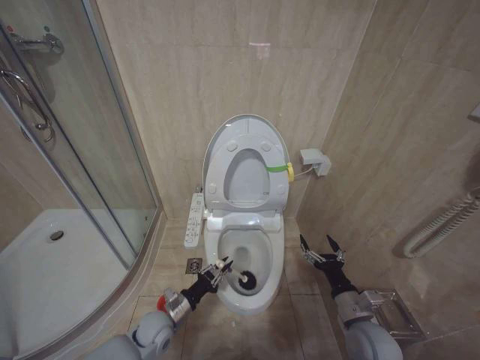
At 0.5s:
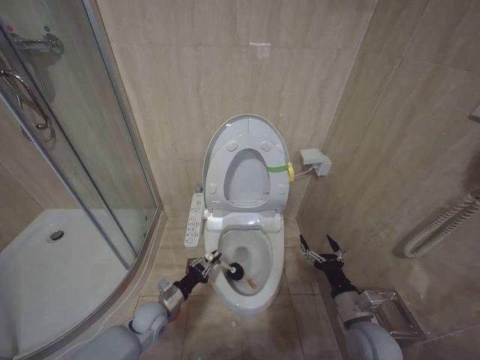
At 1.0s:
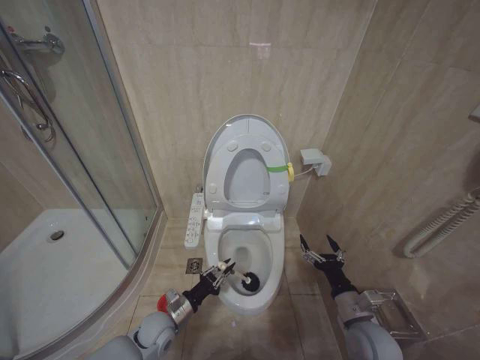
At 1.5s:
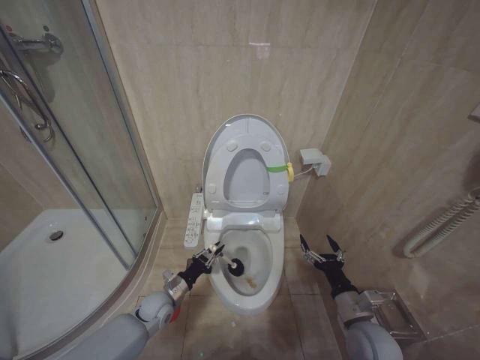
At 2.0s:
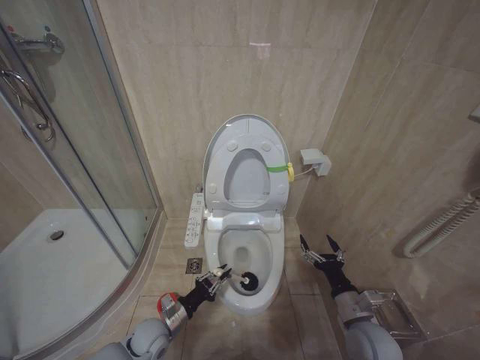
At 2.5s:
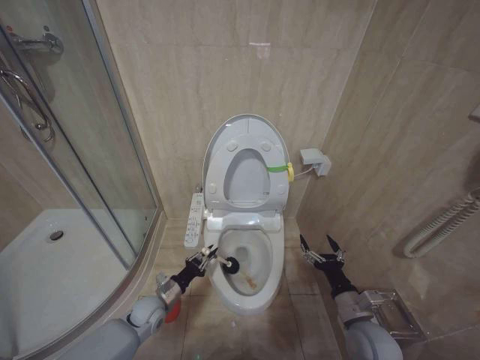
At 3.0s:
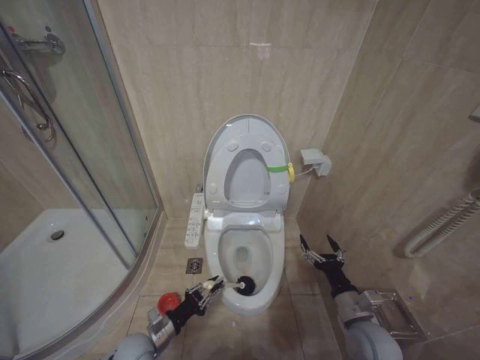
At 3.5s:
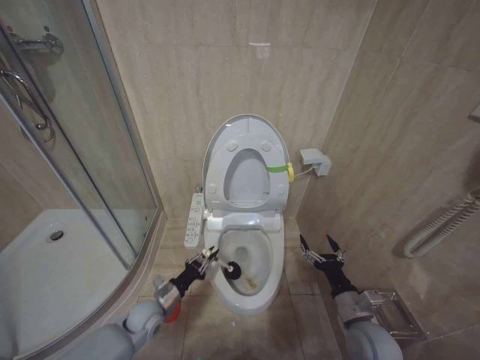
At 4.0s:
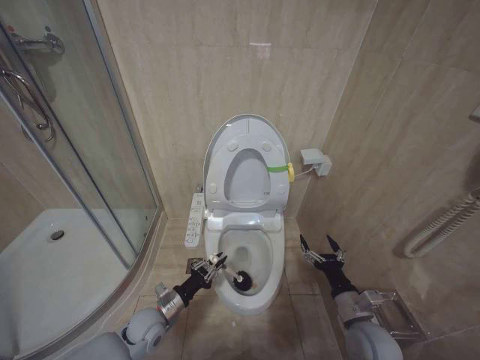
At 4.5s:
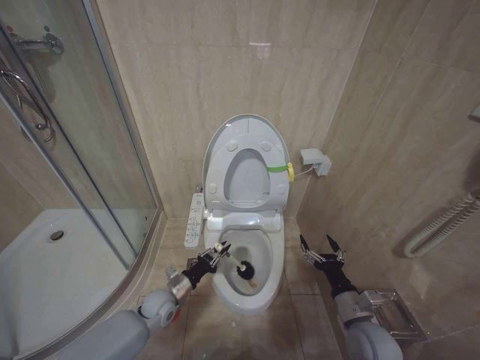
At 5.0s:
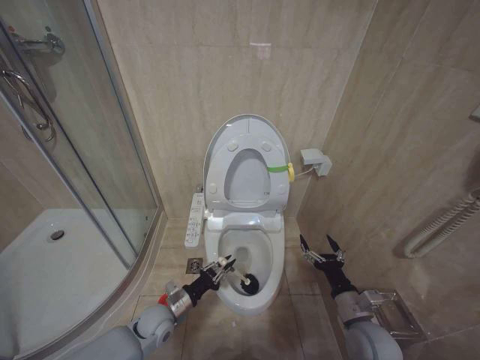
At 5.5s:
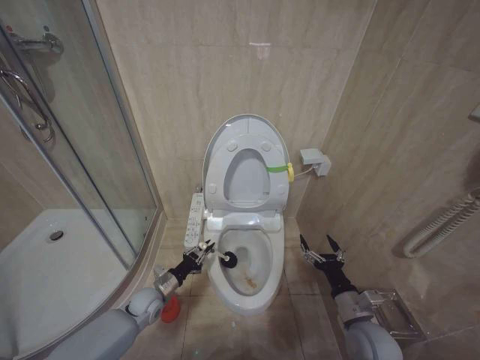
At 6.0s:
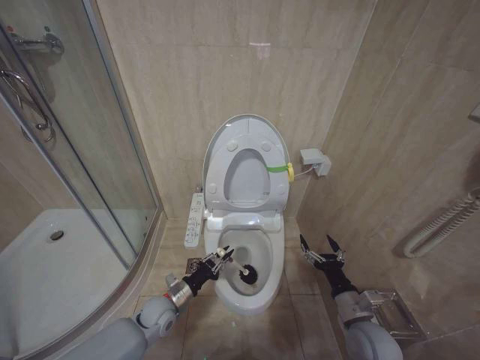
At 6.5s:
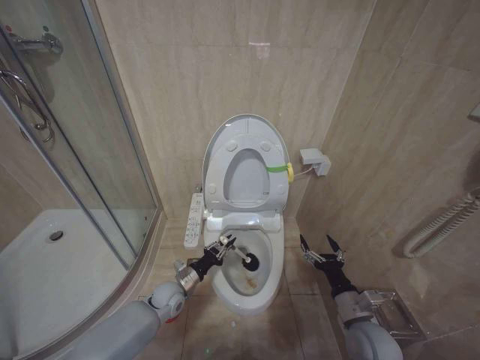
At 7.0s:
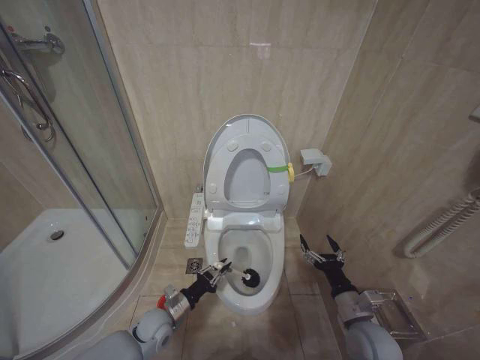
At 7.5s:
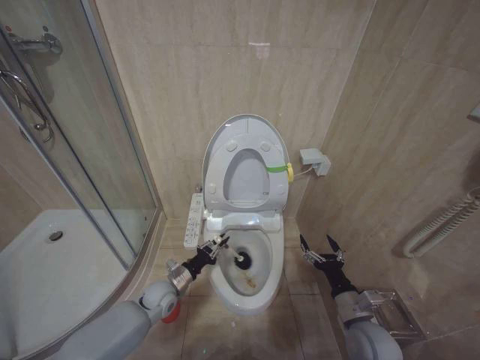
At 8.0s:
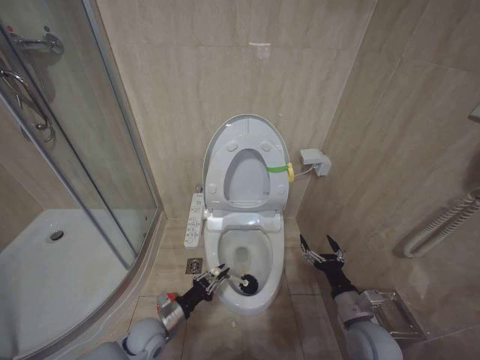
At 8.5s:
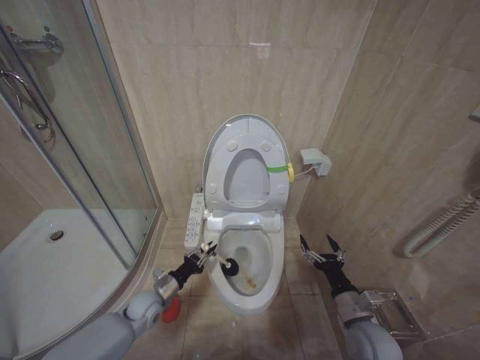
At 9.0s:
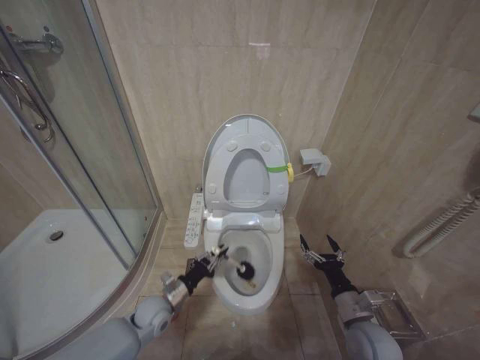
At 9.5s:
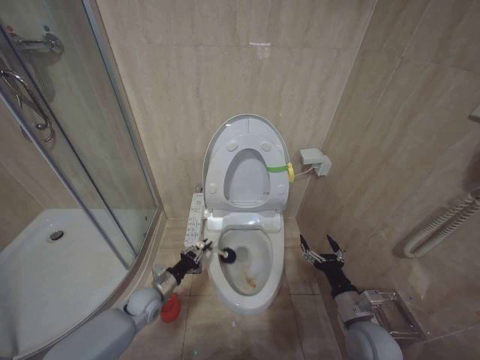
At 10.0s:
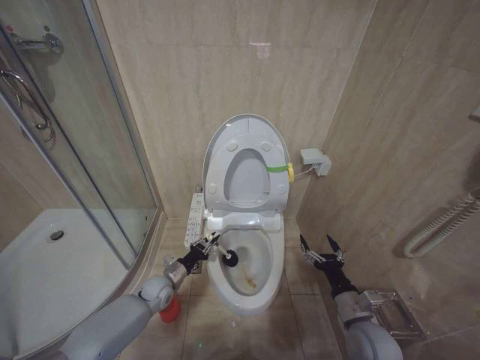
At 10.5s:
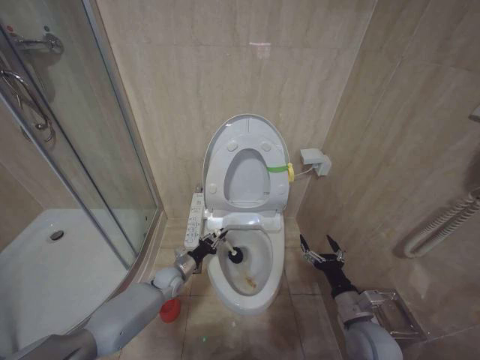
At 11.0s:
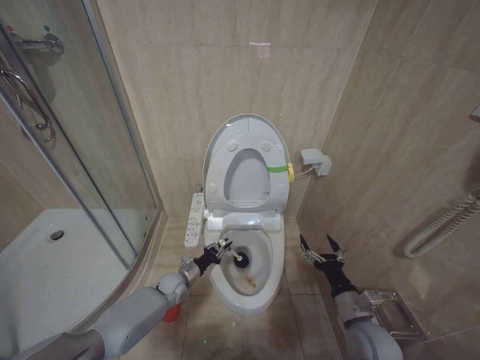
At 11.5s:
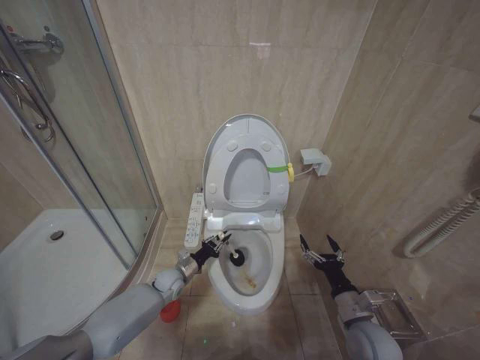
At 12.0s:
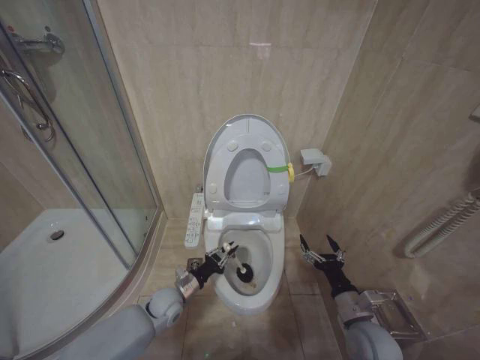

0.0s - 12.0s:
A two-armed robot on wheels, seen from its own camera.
Task of the whole recording: Open the toilet lid, clean the toilet bowl with a toilet brush, close the toilet lid, and flush.
0.0s - 2.0s: The grippers stay close to where they were, moving slightly.
2.0s - 4.0s: The left gripper swings forward and backward, some 5 cm each way, with 2 reversals.
6.0s - 8.0s: The left gripper moves forward and backward over roughly 10 cm, changing direction 3 times.
8.0s - 10.0s: The left gripper heads forward, covering roughly 10 cm.
10.0s - 12.0s: The left gripper moves some 5 cm.

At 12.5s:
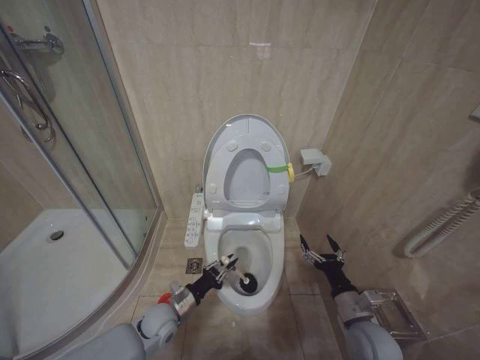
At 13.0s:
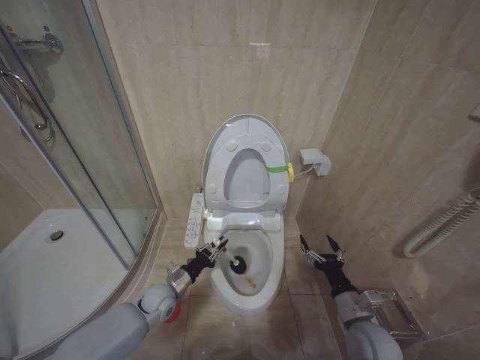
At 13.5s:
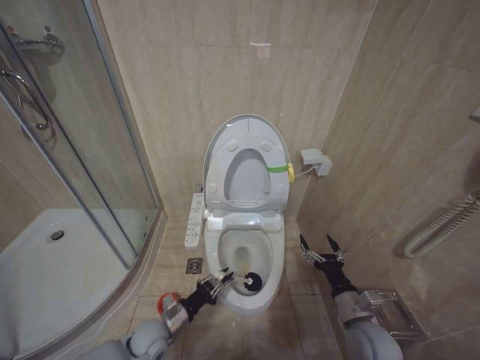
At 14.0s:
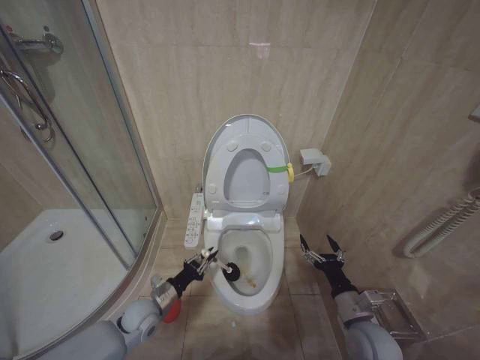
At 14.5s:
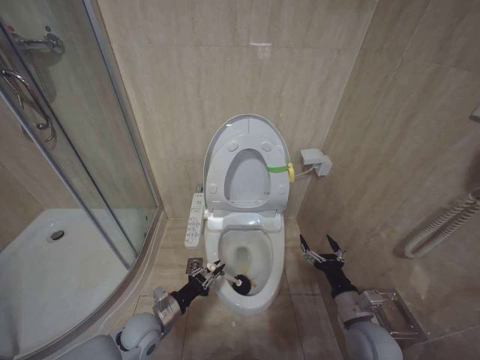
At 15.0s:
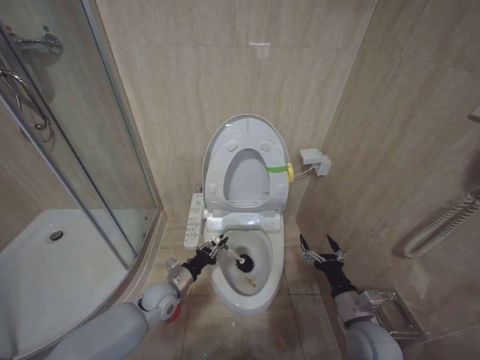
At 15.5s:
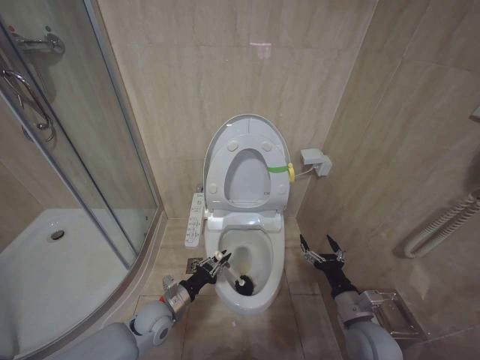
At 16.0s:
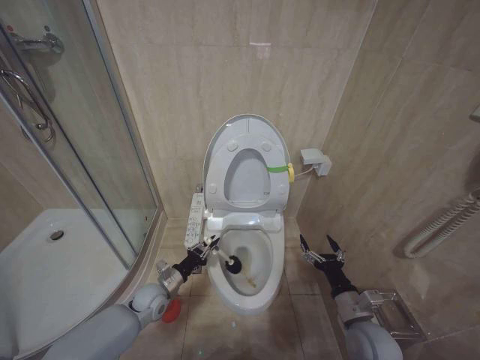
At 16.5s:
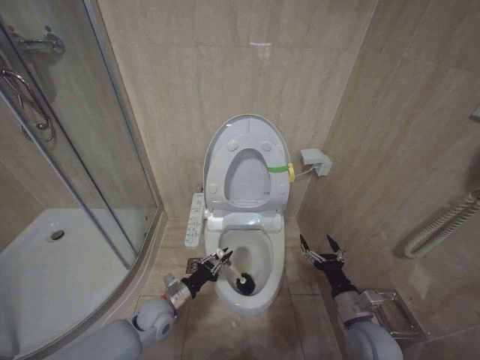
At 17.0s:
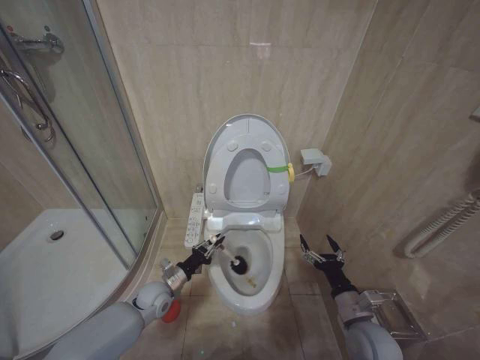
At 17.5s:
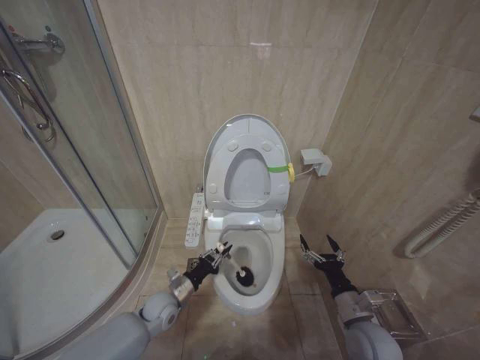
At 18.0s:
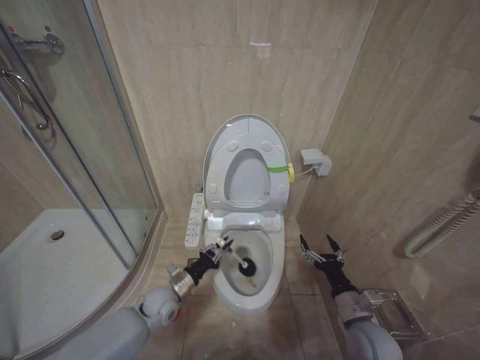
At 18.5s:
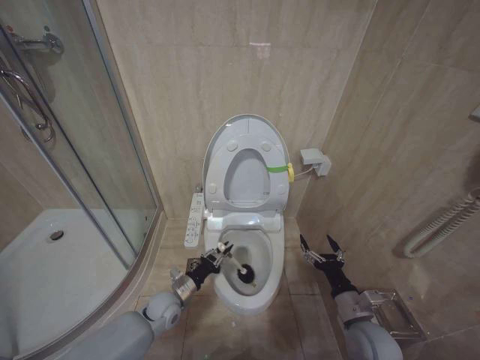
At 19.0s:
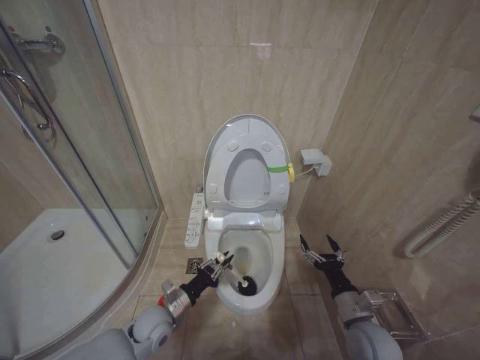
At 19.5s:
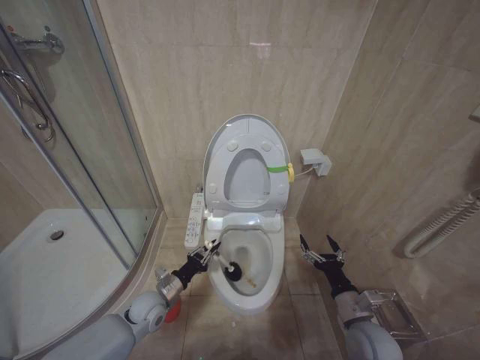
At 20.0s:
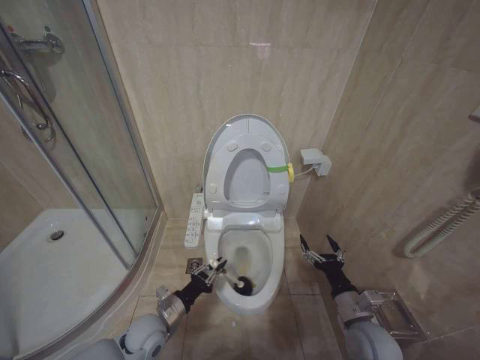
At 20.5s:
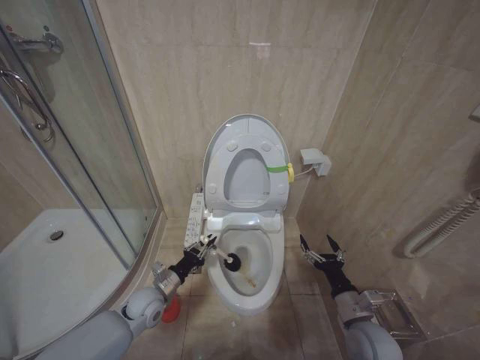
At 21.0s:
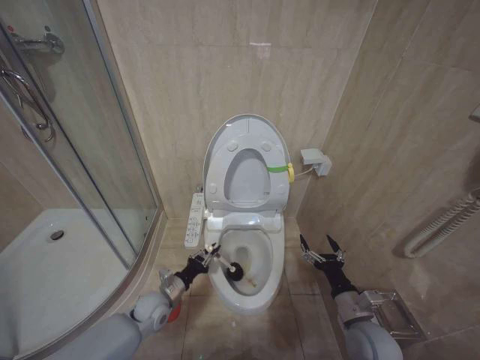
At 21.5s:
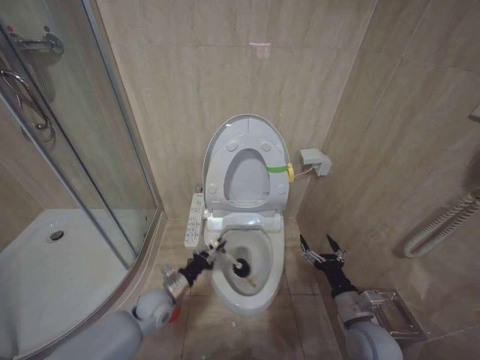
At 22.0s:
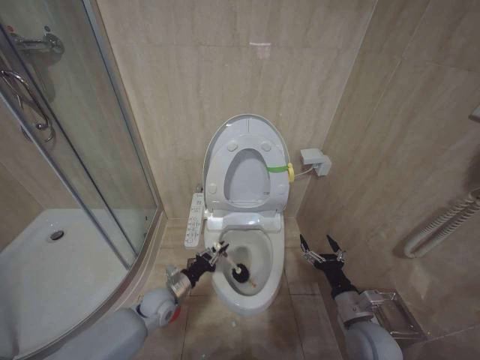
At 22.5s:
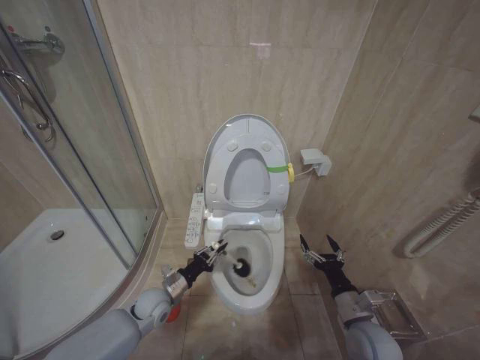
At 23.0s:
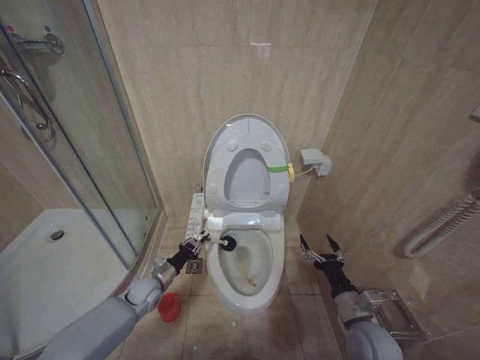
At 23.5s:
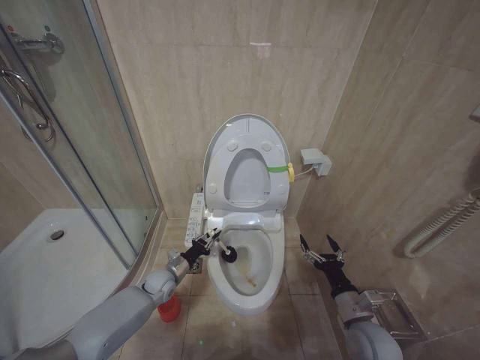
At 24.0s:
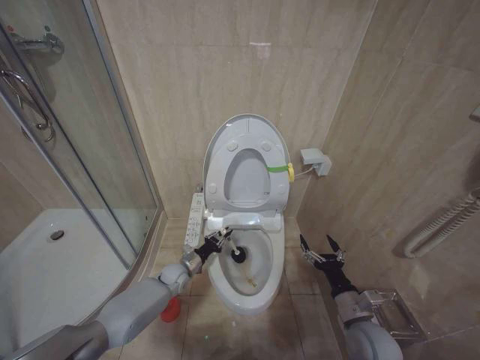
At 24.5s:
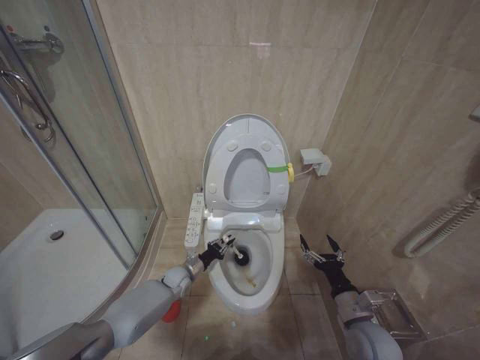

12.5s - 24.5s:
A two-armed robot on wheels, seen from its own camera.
Task of the whole recording: Open the toilet lid, clean the toilet bowl with a toilet brush, close the toilet lid, and flush.
12.5s - 14.5s: The left gripper moves about 5 cm.
14.5s - 16.5s: The left gripper swings forward and backward, some 10 cm each way, with 3 reversals.
18.5s - 20.5s: The left gripper goes about 5 cm to the left.
20.5s - 22.5s: The grippers move only a little.
22.5s - 24.5s: The left gripper is displaced forward and downward by roughly 10 cm.

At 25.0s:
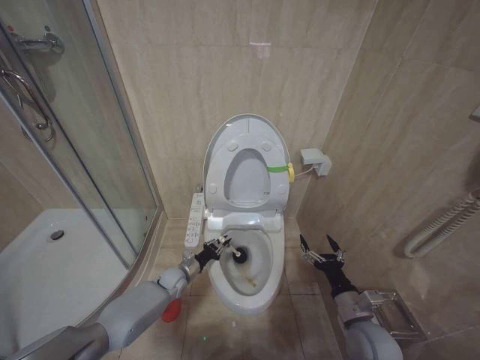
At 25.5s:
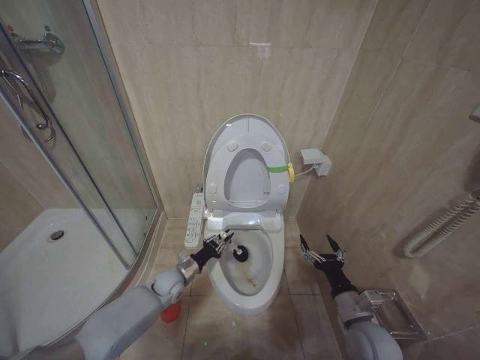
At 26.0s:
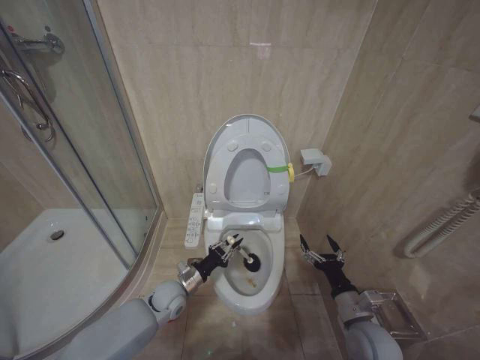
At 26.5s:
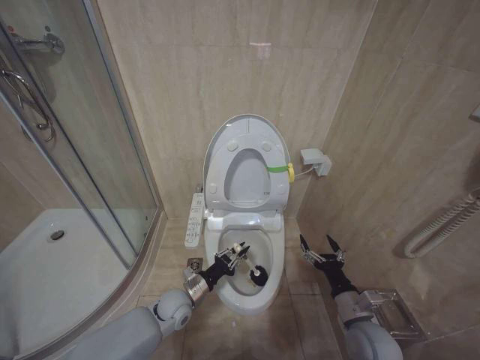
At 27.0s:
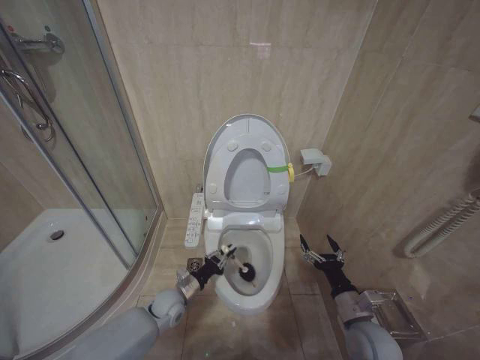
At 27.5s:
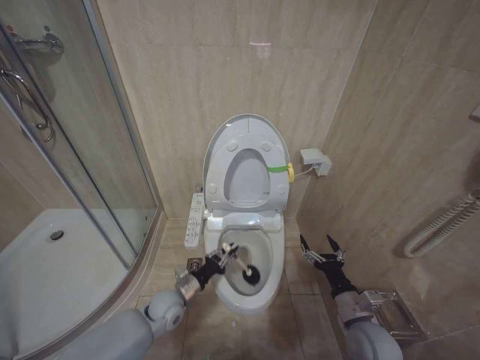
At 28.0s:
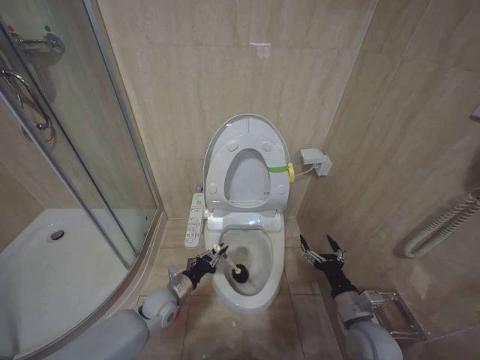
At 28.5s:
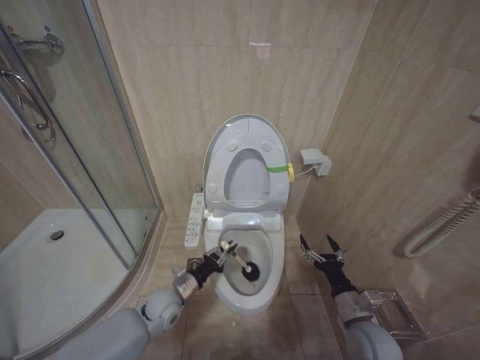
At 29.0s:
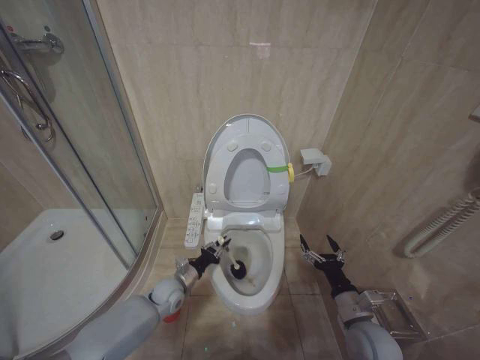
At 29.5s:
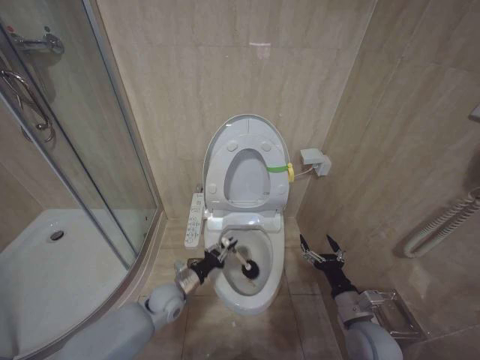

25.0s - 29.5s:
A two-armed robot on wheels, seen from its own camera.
Task of the whole recording: Open the toilet lid, clean the toilet bowl with a toilet brush, close the toilet lid, and flush.
25.0s - 27.0s: The left gripper moves backward, approximately 10 cm.
27.0s - 29.5s: The grippers stay close to where they were, moving slightly.
